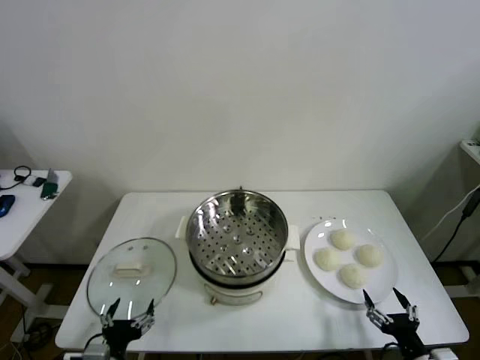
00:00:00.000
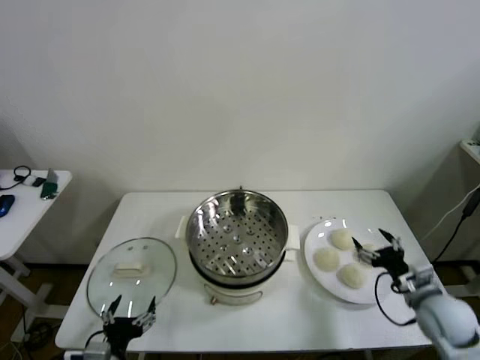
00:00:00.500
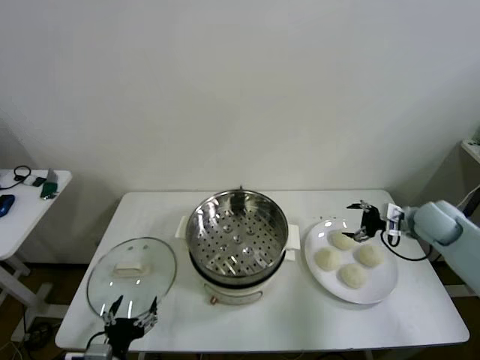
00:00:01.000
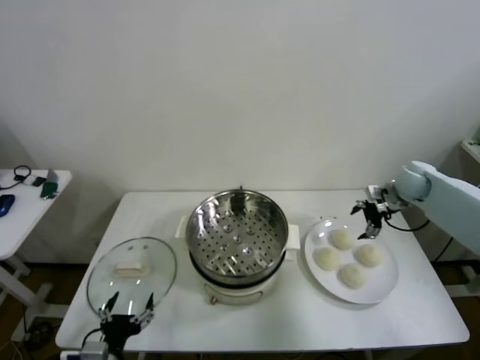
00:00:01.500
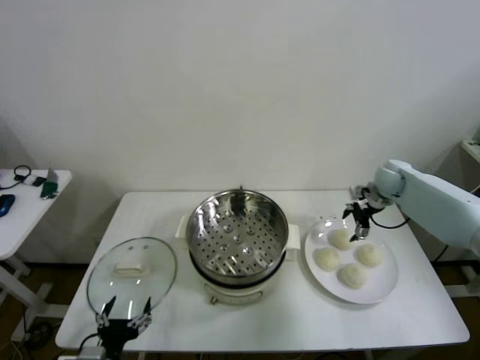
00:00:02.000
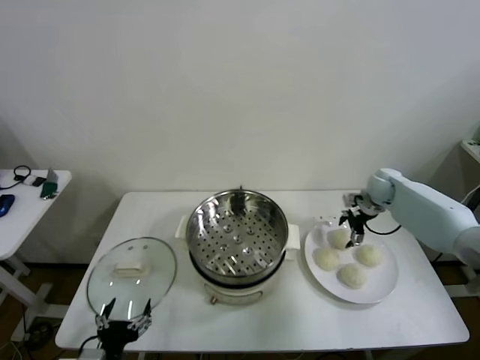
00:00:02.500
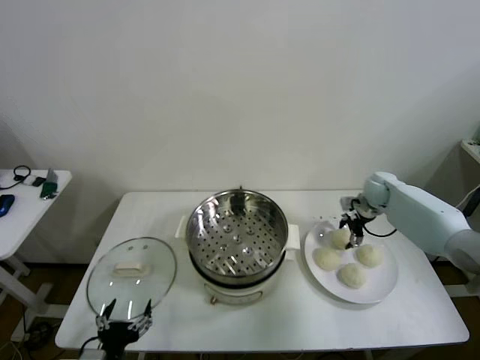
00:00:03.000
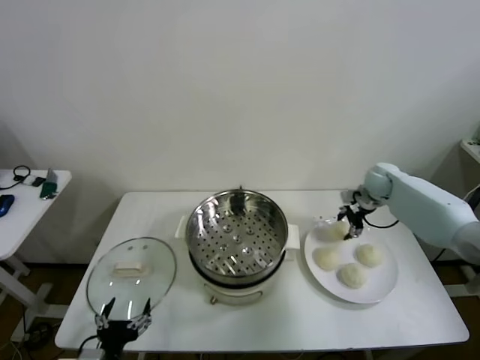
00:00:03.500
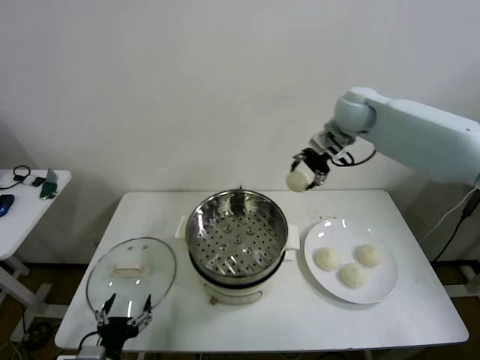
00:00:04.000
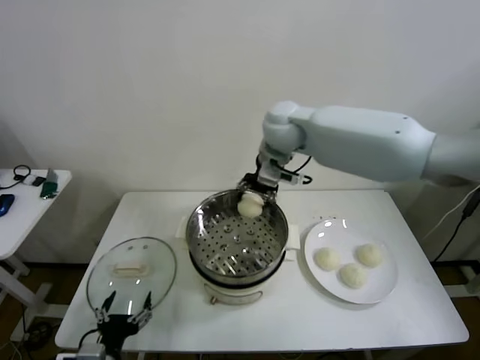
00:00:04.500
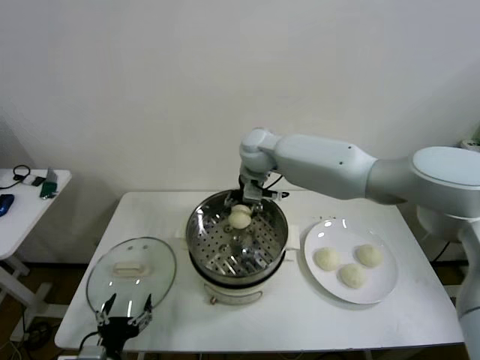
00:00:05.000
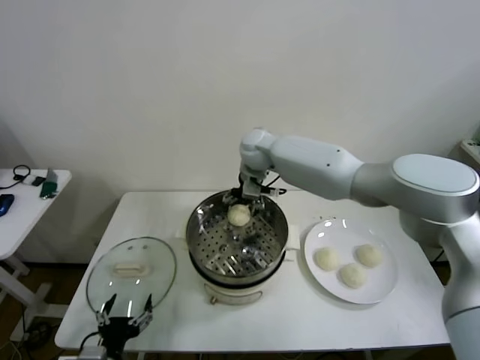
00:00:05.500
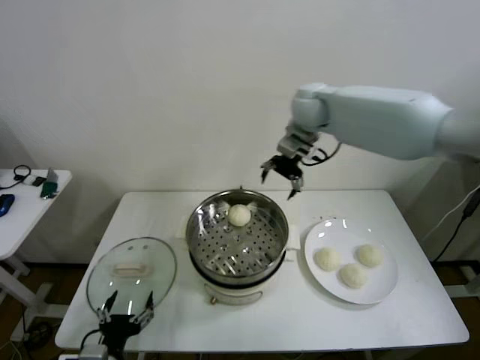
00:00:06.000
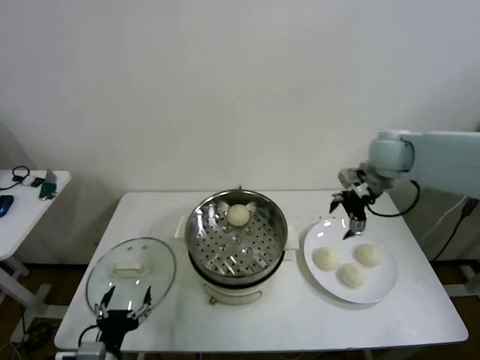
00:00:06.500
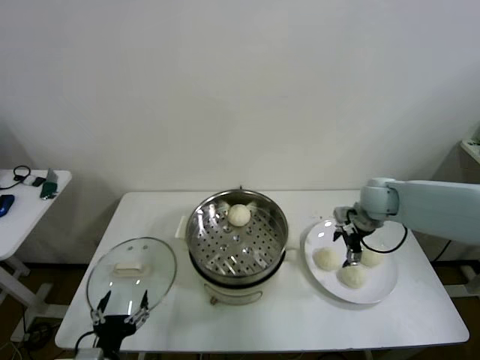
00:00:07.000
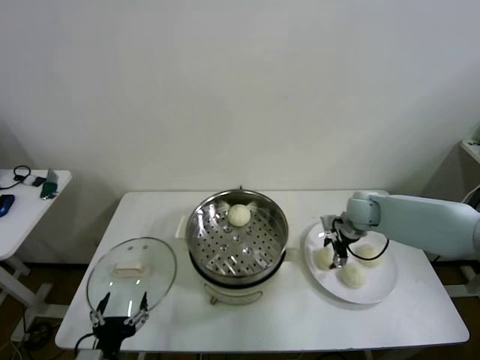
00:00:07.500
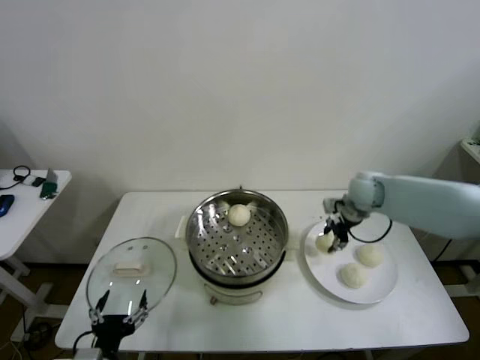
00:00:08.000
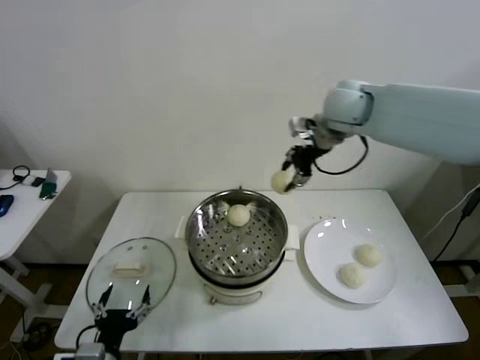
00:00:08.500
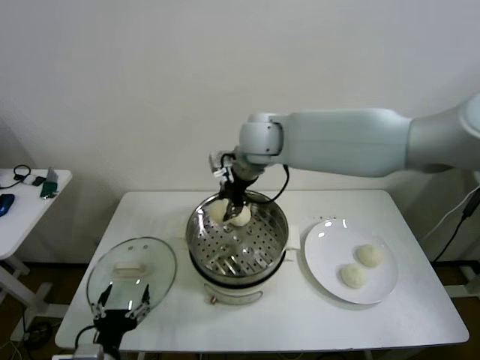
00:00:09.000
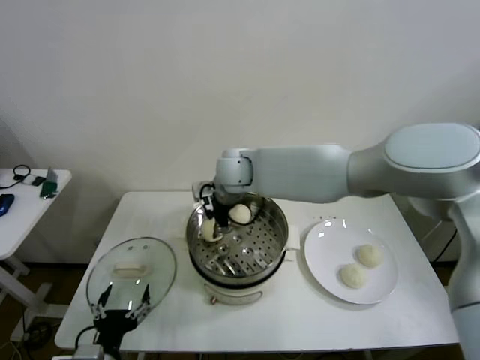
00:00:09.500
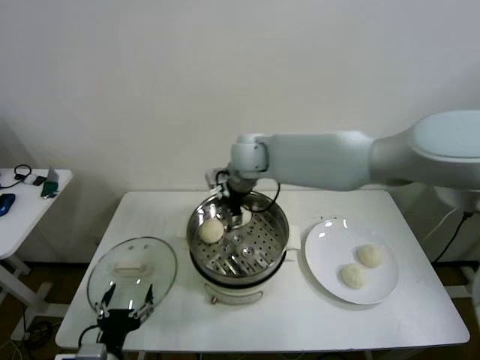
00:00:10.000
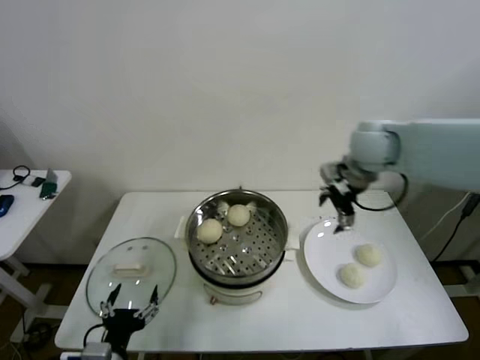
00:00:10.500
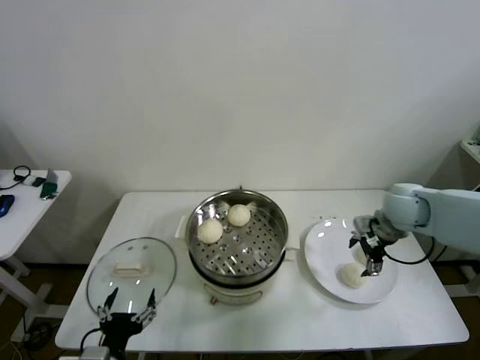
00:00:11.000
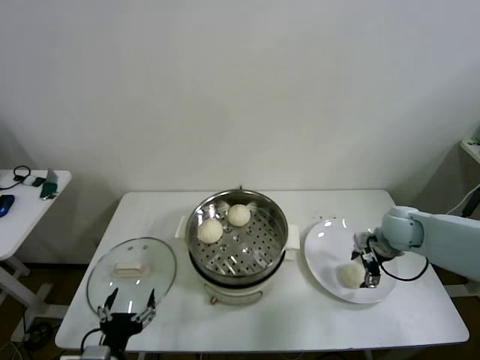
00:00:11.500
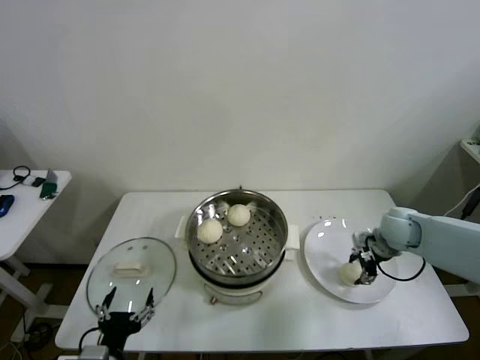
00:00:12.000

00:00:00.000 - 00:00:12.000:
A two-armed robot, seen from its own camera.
Step, 00:00:00.000 - 00:00:03.000: Grasp the baozi in the plate with right gripper.
Step, 00:00:03.500 - 00:00:05.500: Place the baozi on the steamer with right gripper.
Step, 00:00:06.000 - 00:00:07.500: Grasp the baozi in the plate with right gripper.
Step, 00:00:08.000 - 00:00:09.500: Place the baozi on the steamer with right gripper.
Step, 00:00:10.000 - 00:00:11.500: Grasp the baozi in the plate with right gripper.
00:00:02.000 - 00:00:04.000: The right gripper goes roughly 30 cm upward and to the left, and closes.
00:00:04.000 - 00:00:06.000: The right gripper reaches roughly 15 cm to the left, then returns, and opens its fingers.
00:00:06.000 - 00:00:08.000: The right gripper is displaced downward and to the right by about 20 cm, and closes.
00:00:08.000 - 00:00:10.000: The right gripper is displaced to the left by some 25 cm, and opens up.
00:00:10.000 - 00:00:12.000: The right gripper is displaced to the right and downward by approximately 40 cm, and closes its fingers.

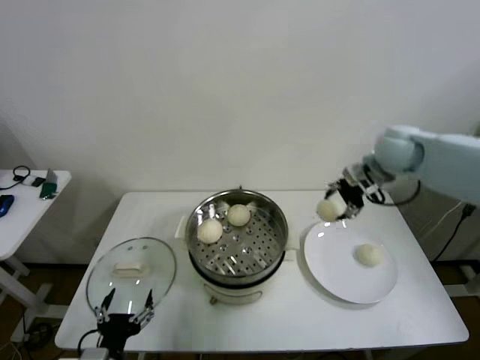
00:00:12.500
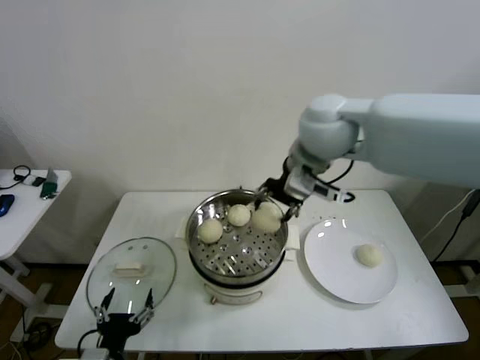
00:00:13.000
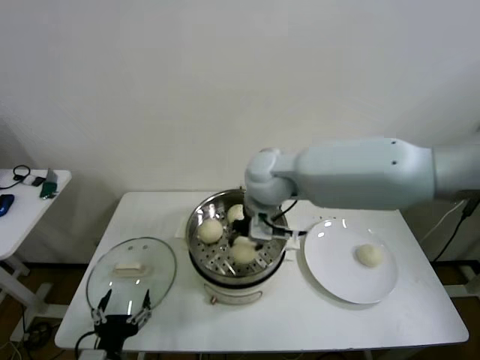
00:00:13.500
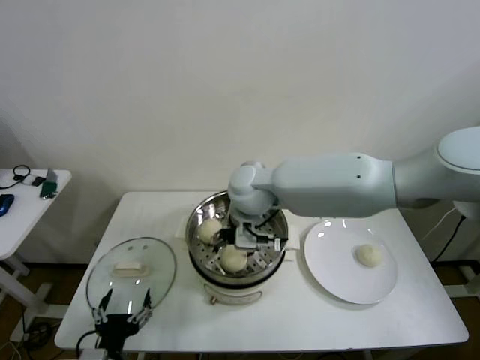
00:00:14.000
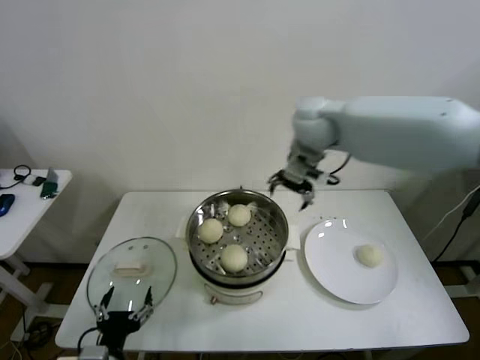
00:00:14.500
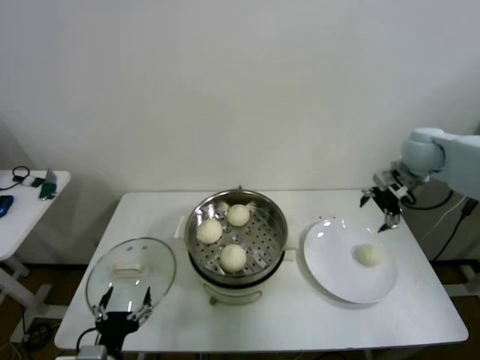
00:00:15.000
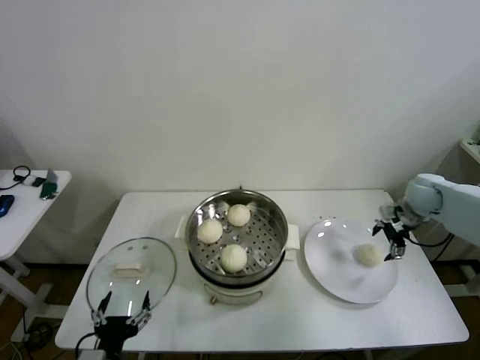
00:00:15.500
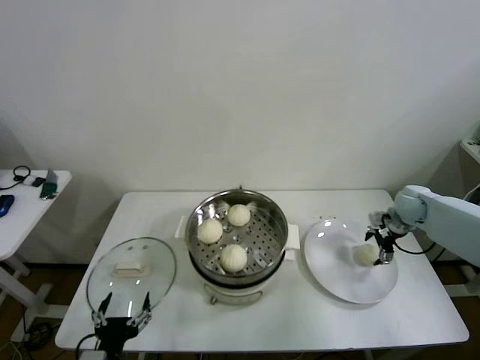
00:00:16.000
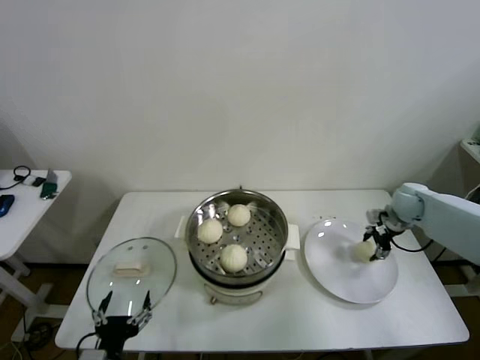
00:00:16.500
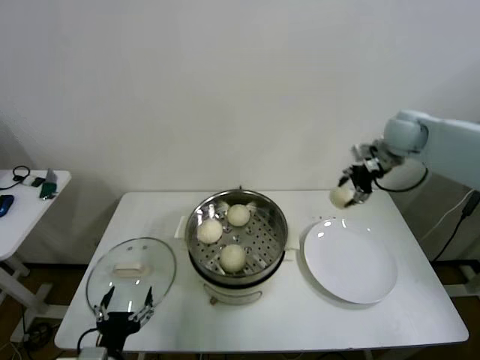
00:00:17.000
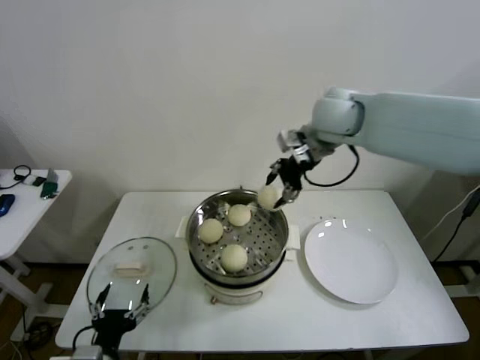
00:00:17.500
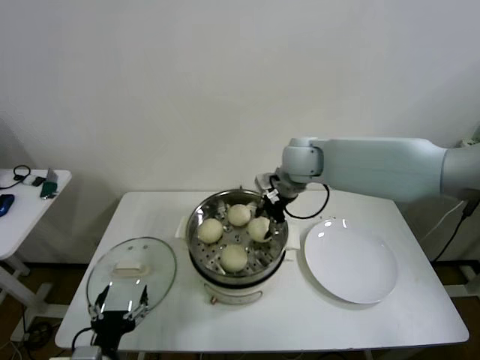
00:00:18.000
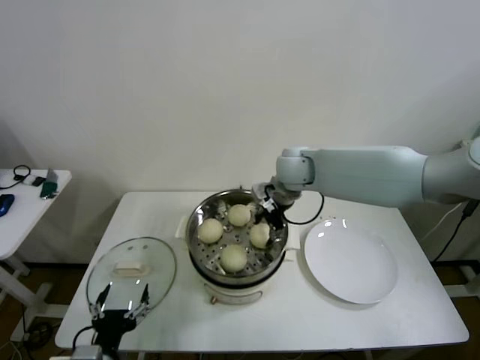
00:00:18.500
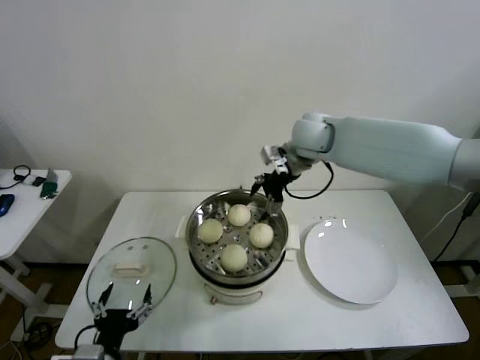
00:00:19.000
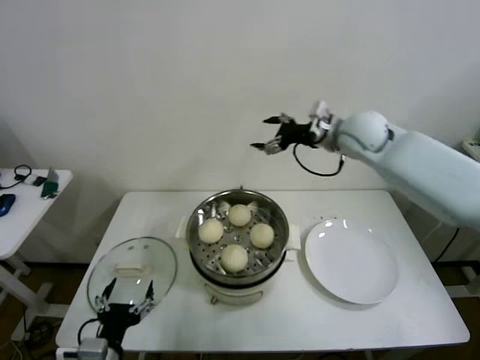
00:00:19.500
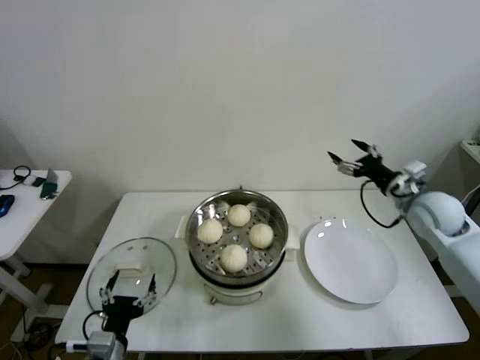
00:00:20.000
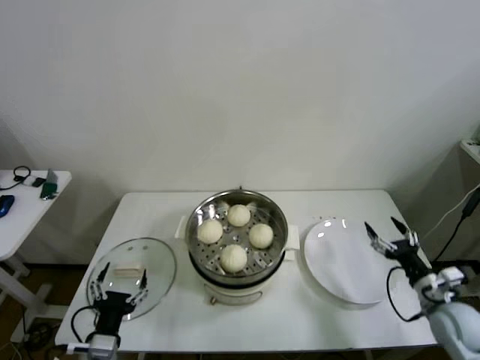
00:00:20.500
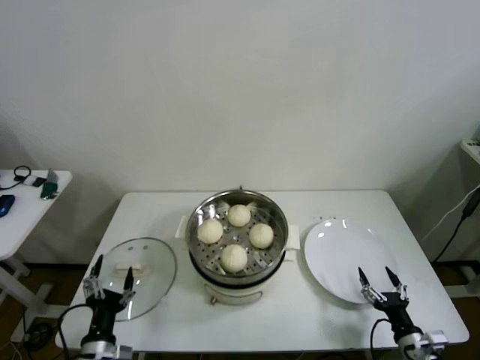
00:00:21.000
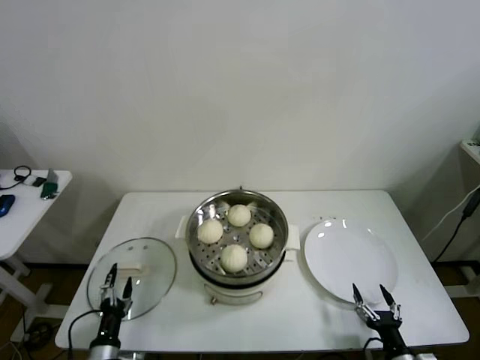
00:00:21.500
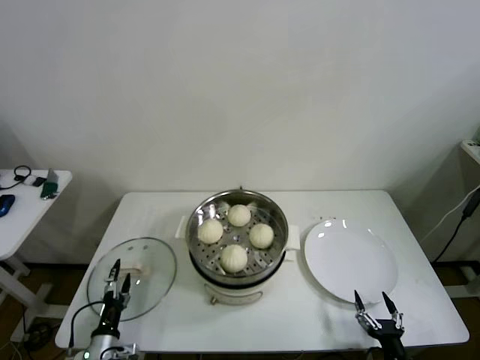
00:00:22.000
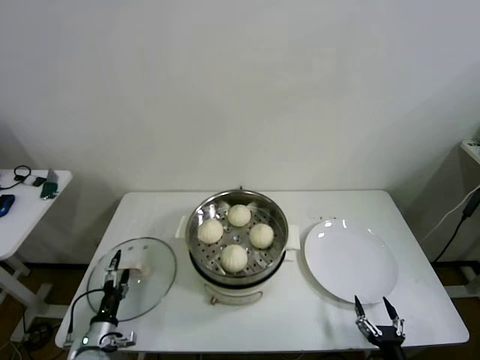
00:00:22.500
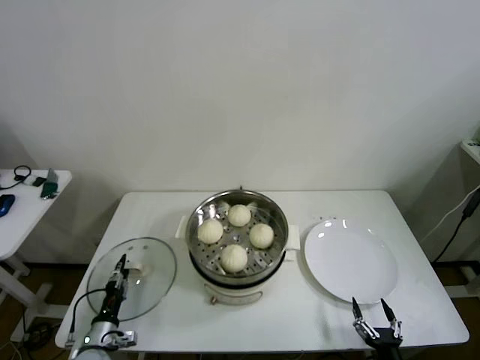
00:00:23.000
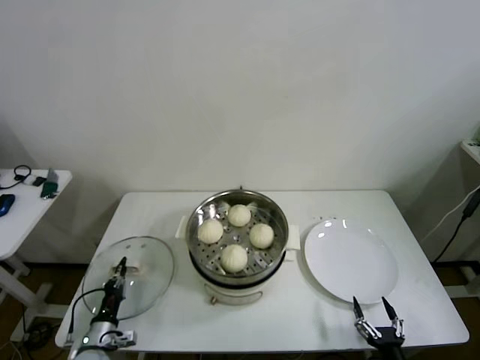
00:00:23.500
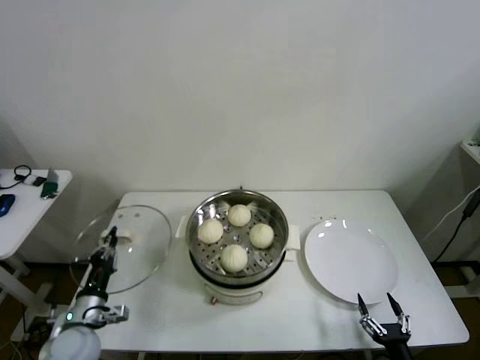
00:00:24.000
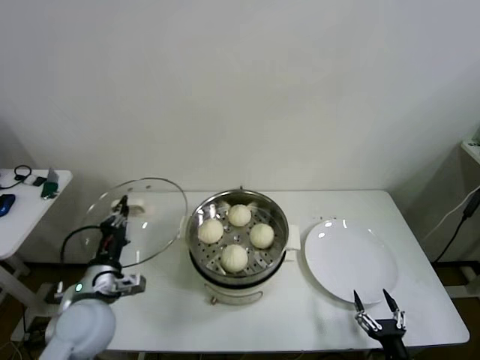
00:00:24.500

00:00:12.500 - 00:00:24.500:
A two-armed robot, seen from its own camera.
Step, 00:00:12.500 - 00:00:13.500: Place the baozi on the steamer with right gripper.
Step, 00:00:14.000 - 00:00:16.000: Grasp the baozi in the plate with right gripper.
Step, 00:00:16.500 - 00:00:18.500: Place the baozi on the steamer with right gripper.
Step, 00:00:19.000 - 00:00:23.000: Grasp the pot lid with left gripper.
00:00:12.500 - 00:00:14.500: The right gripper moves to the left, some 15 cm, and opens its fingers.
00:00:14.500 - 00:00:16.500: The right gripper goes approximately 35 cm to the right and downward, and closes.
00:00:16.500 - 00:00:18.500: The right gripper travels to the left by approximately 30 cm.
00:00:18.500 - 00:00:20.500: The right gripper heads to the right, backward and downward, covering about 50 cm, and opens up. Meanwhile the left gripper moves roughly 5 cm.
00:00:20.500 - 00:00:22.500: The left gripper travels downward, to the left and forward by roughly 20 cm. The right gripper goes about 25 cm backward, downward and to the left.
00:00:22.500 - 00:00:24.500: The left gripper travels upward by some 25 cm, and closes its fingers.

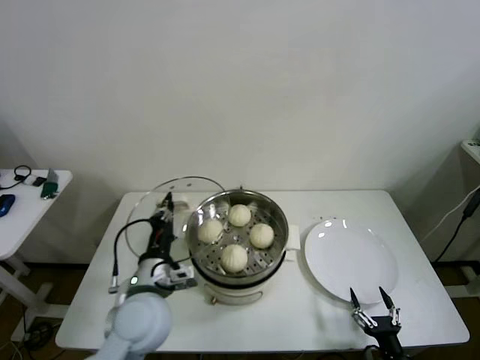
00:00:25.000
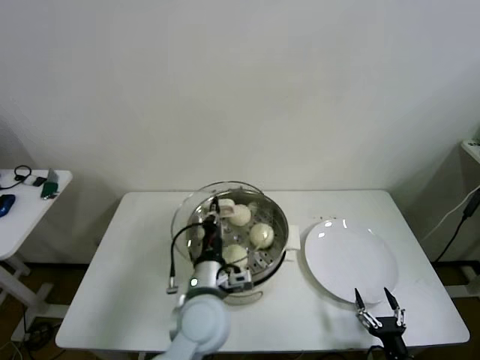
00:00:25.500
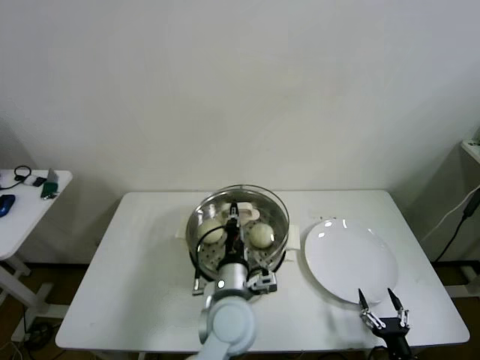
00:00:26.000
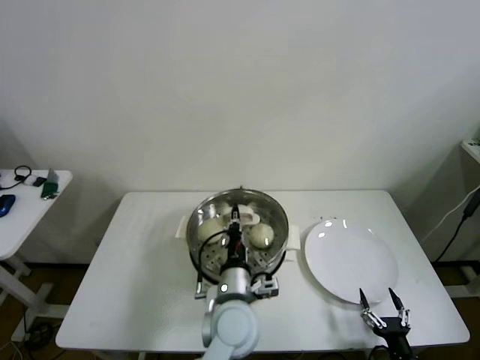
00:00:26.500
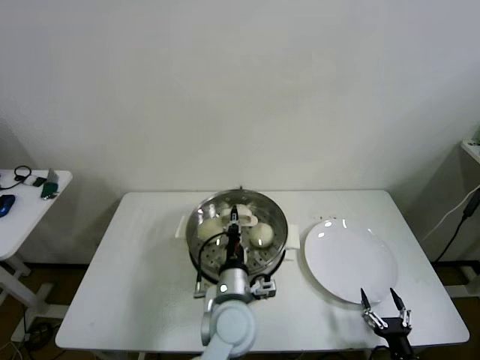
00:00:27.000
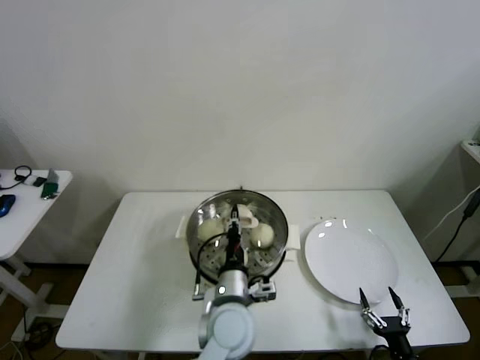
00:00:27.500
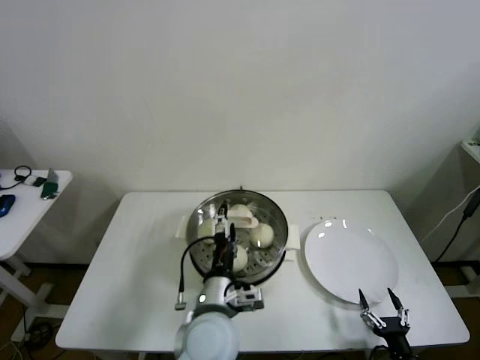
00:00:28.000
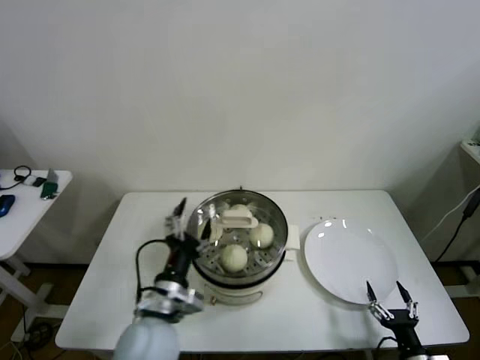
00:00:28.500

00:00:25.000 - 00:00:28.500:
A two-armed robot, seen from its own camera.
Step, 00:00:25.000 - 00:00:27.500: Place the pot lid on the steamer with left gripper.
00:00:25.000 - 00:00:27.000: The left gripper moves to the right, approximately 15 cm.
00:00:27.000 - 00:00:28.500: The left gripper goes about 10 cm to the left, and opens up.
